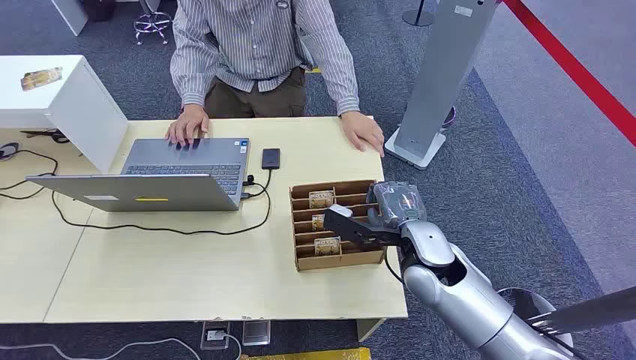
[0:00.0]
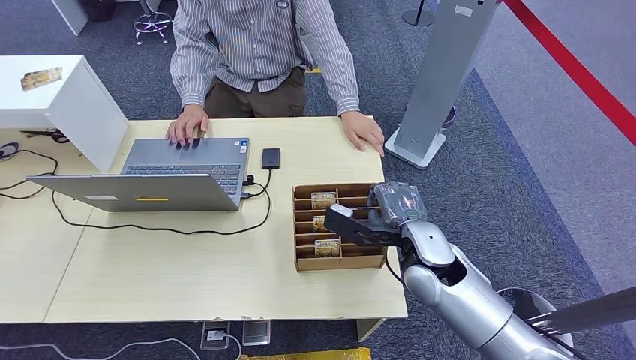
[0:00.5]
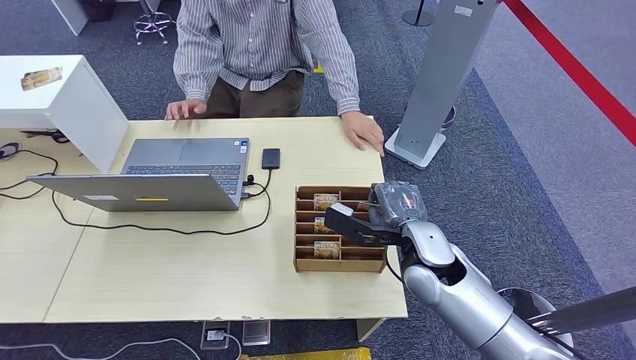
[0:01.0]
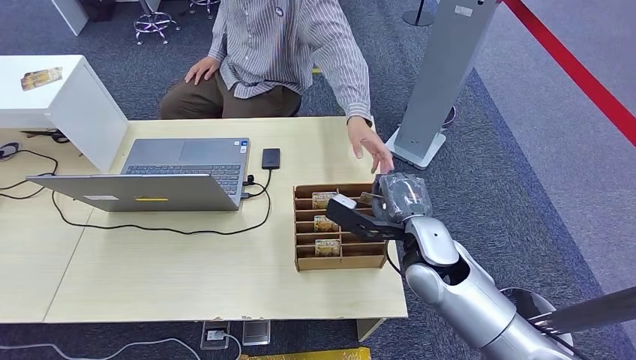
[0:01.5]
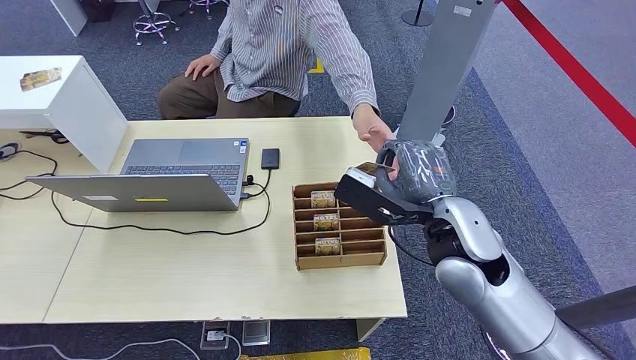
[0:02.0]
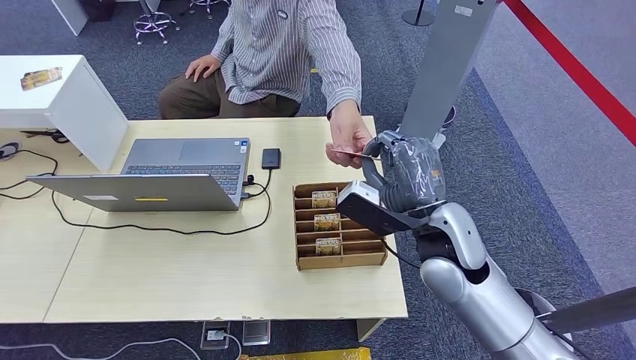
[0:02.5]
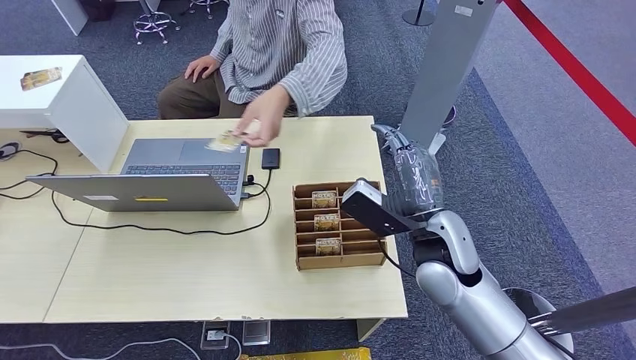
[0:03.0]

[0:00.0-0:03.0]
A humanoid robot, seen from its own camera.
Task of the whole recording: Pick up the card and hand it over to the target person.
Step, 0:00.0 to 0:01.5: Pick up the key card from the card box.
Step, 0:02.5 to 0:03.0: Hand the key card to the target.
0:01.5 to 0:03.0: The right hand travels downward by approximately 5 cm.
